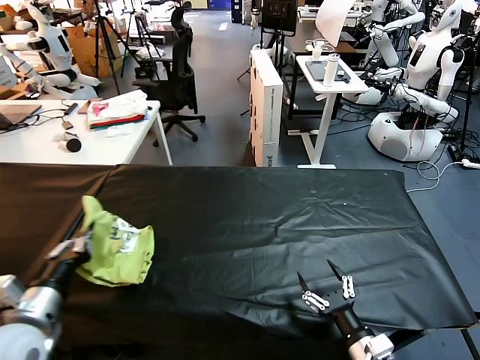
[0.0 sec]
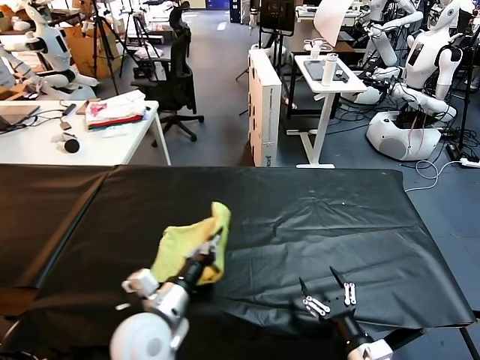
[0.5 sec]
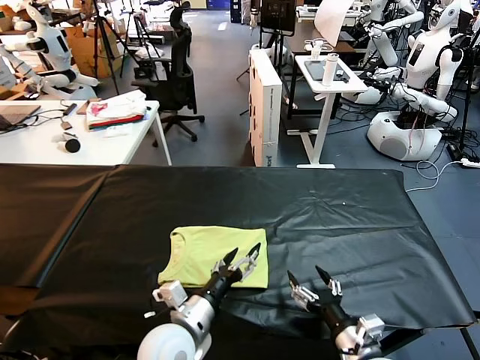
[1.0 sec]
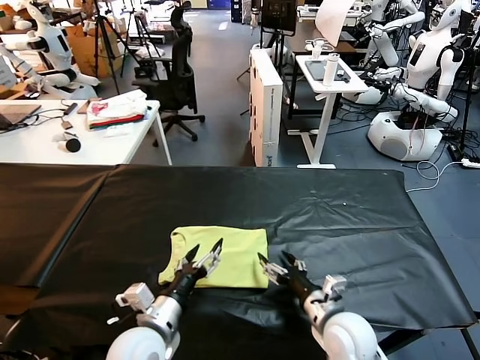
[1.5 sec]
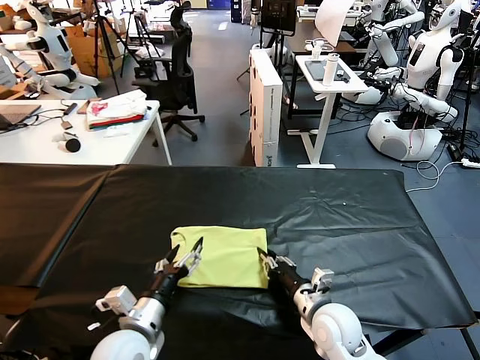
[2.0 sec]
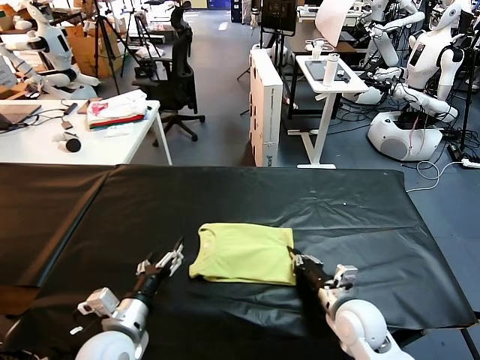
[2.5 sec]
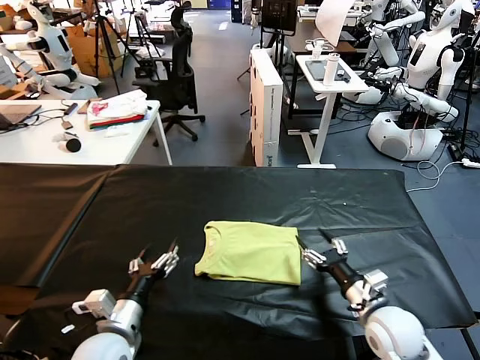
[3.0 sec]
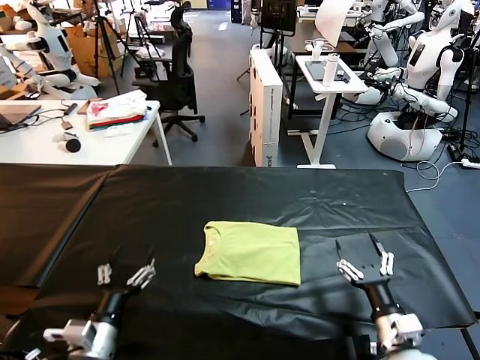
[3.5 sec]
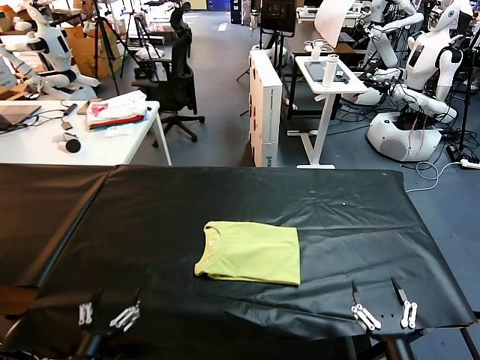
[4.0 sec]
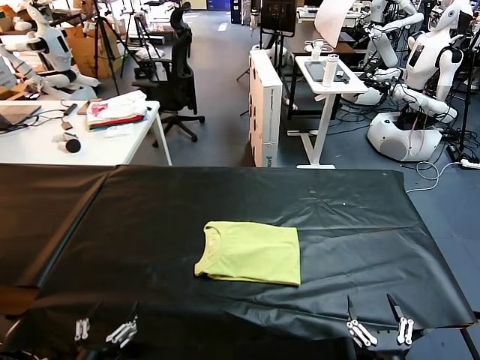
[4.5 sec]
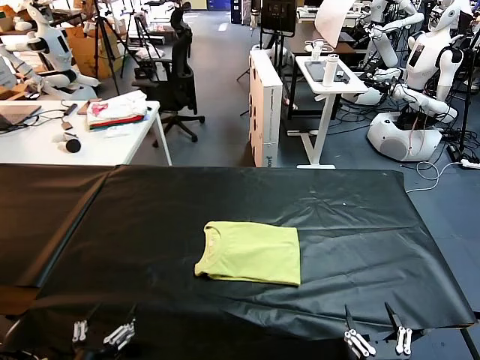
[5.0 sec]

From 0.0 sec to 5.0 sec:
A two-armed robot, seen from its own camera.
Task of the whole recording: fold and organize the clothes.
Step, from 1.0 sec to 2.5 sec: Drag the clothes to the center of the table.
From 0.0 sec to 2.5 sec: The right gripper heads forward, covering roughly 15 cm, and closes. The left gripper goes approximately 15 cm to the right and downward, and opens.
From 2.5 sec to 5.0 sec: The right gripper heads backward, covering roughly 25 cm, and opens. Meanwhile the left gripper is displaced backward and to the left by some 15 cm.

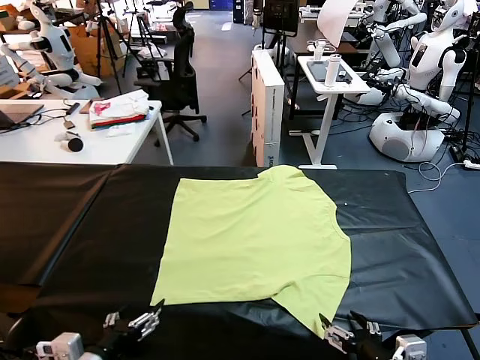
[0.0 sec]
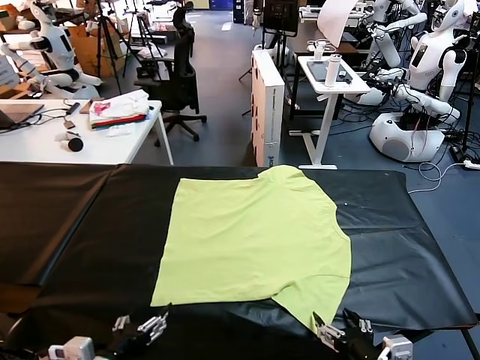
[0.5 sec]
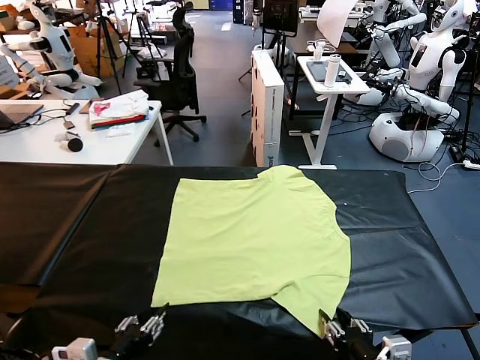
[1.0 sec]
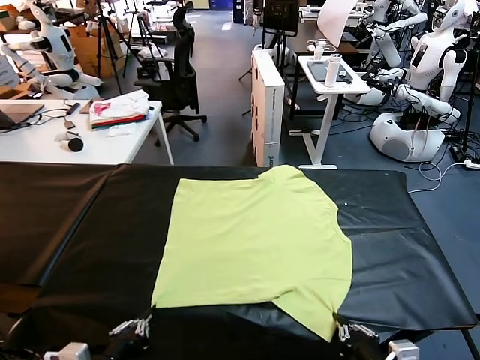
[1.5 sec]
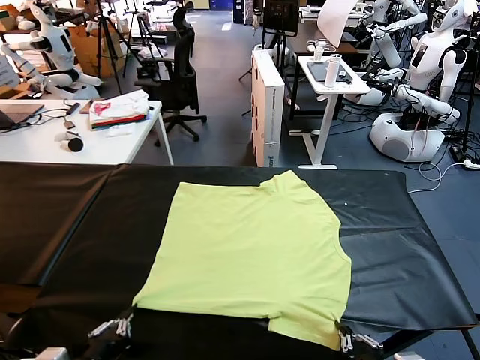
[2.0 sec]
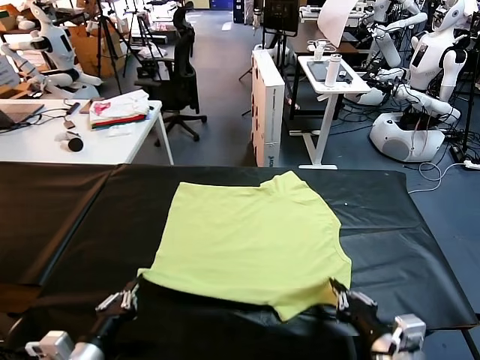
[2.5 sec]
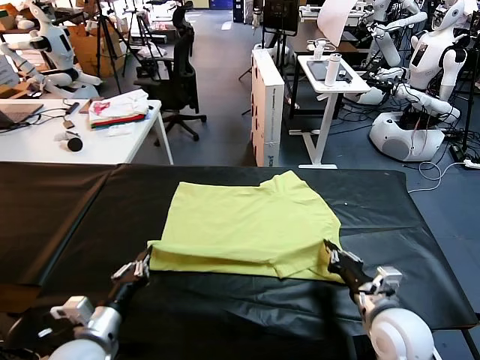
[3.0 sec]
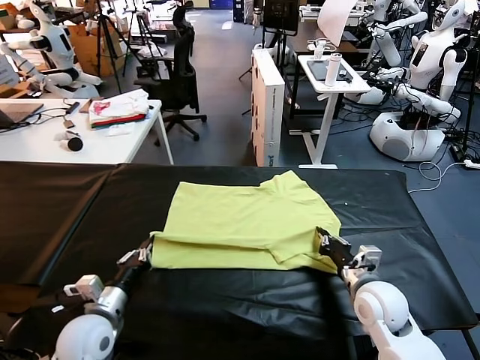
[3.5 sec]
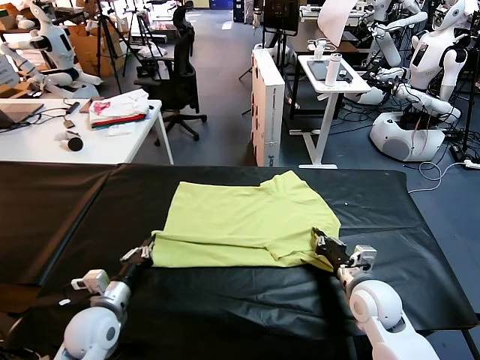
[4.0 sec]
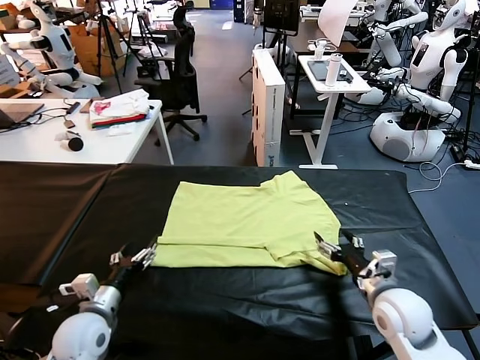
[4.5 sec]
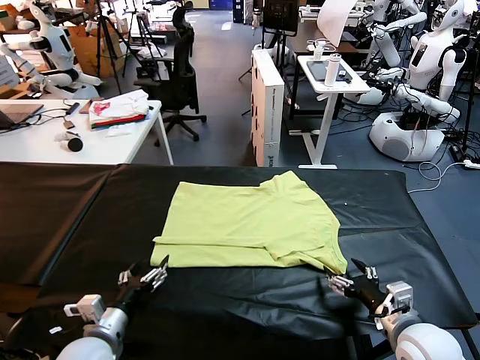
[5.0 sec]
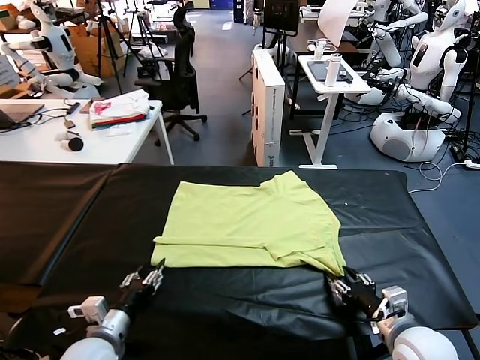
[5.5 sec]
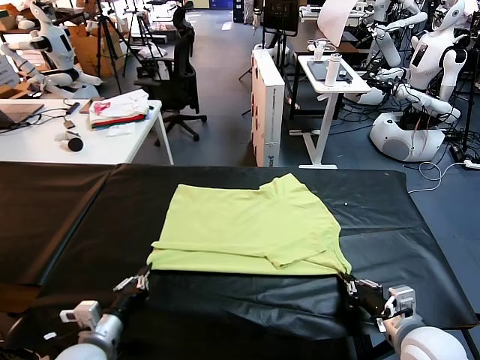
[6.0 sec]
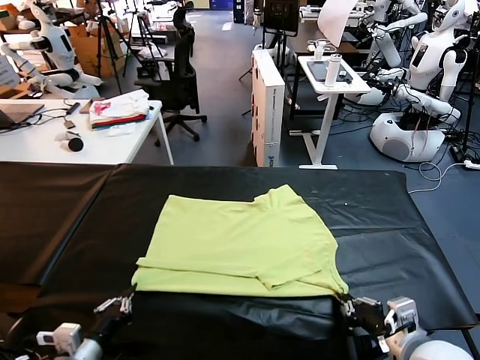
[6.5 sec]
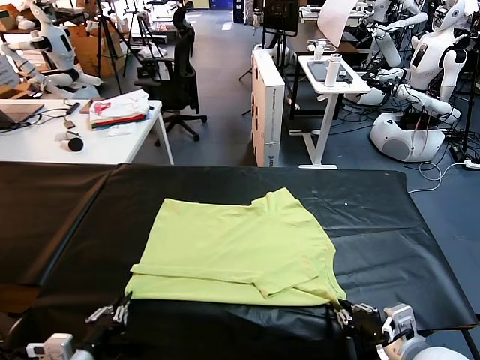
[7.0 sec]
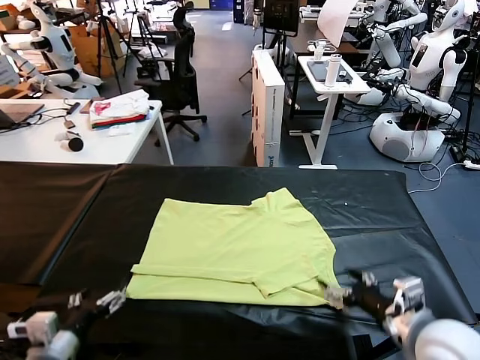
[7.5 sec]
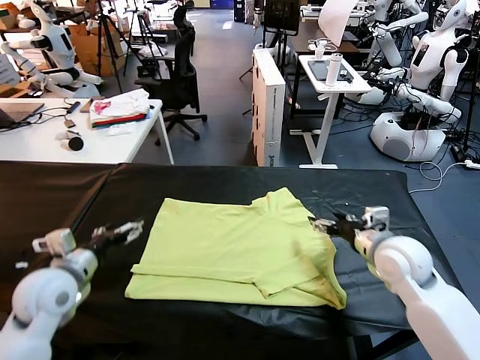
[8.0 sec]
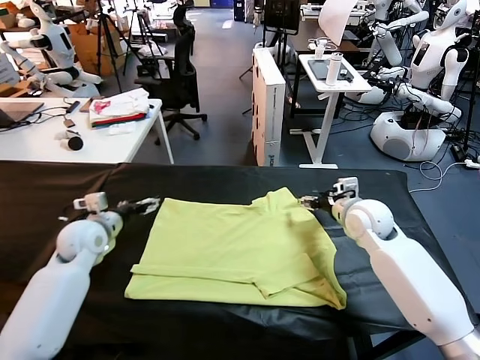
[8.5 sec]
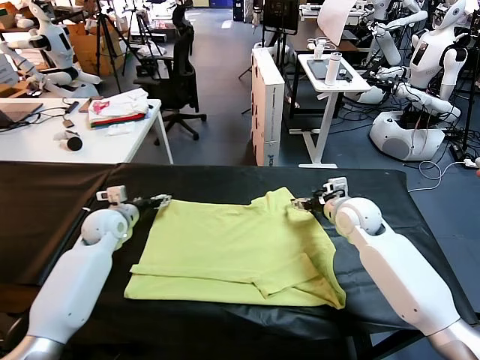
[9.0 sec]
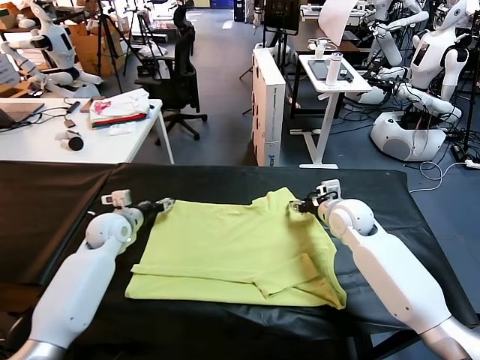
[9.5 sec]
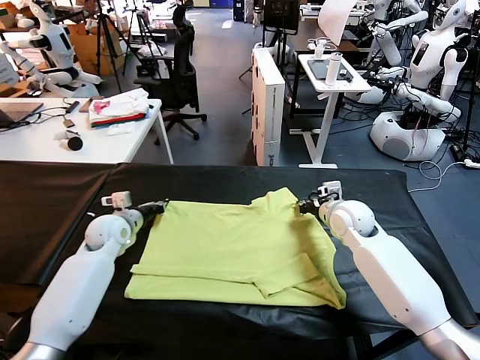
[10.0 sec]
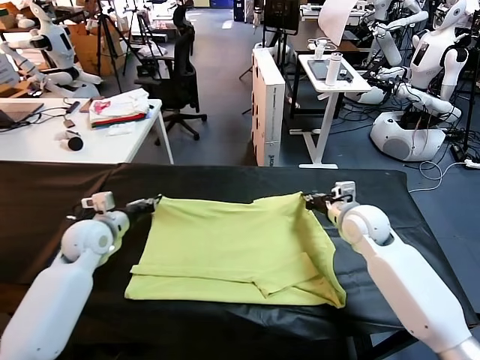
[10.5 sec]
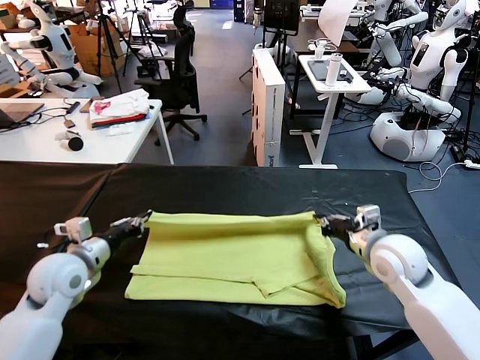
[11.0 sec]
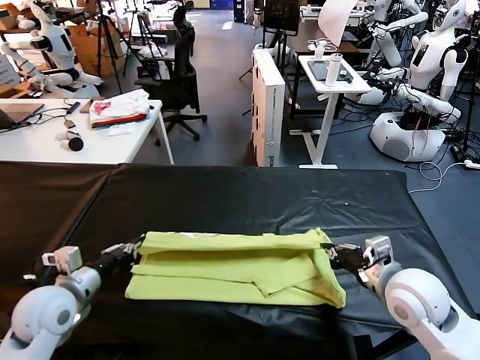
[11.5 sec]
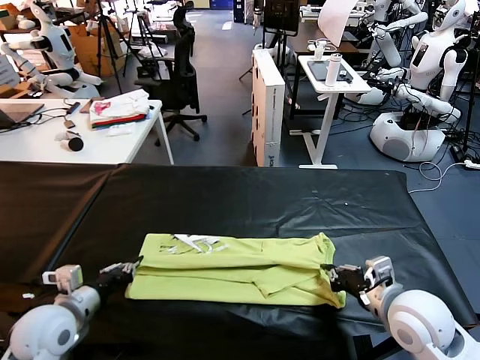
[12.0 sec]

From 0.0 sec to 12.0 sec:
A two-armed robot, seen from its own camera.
Task of the whole recording: fold and organize the clothes.
Step, from 0.0 sec to 1.0 sec: use both grippers simultaneously to clamp the lower edge of the clothing fabric.
Step, from 1.5 sec to 4.0 sec: use both grippers to drag the lower edge of the fabric forward and fold it over the upper edge.
Step, from 4.5 sec to 7.0 sec: Drag the clothes downward with both gripper.
Step, from 7.5 sec to 10.0 sec: use both grippers simultaneously to clamp the upper edge of the clothing fabric.
From 2.0 sec to 4.0 sec: The right gripper goes some 20 cm forward, and opens its fingers. The left gripper is displaced forward and downward by approximately 20 cm.
From 4.0 sec to 6.0 sec: The right gripper travels backward and upward by about 10 cm, and closes its fingers. Meanwhile the left gripper heads backward, covering some 10 cm, and opens, then closes once more.
From 6.0 sec to 8.0 sec: The right gripper is displaced forward by about 20 cm, and opens up. The left gripper shifts approximately 20 cm forward, upward and to the left, and opens its fingers.
From 8.0 sec to 10.0 sec: The right gripper travels forward by some 5 cm, and closes its fingers, while the left gripper moves forward and downward, some 15 cm, and closes up.
From 10.0 sec to 12.0 sec: Both grippers travel together backward, roughly 25 cm.

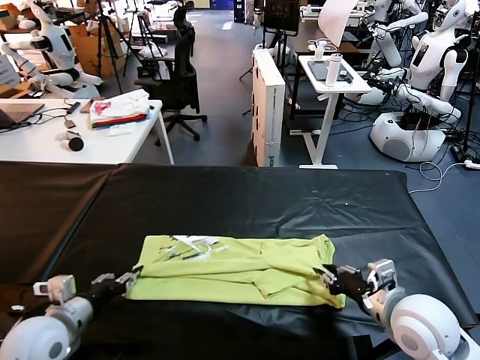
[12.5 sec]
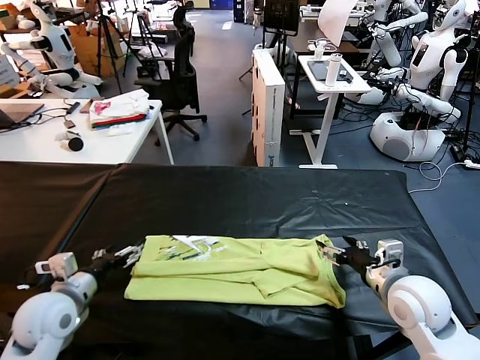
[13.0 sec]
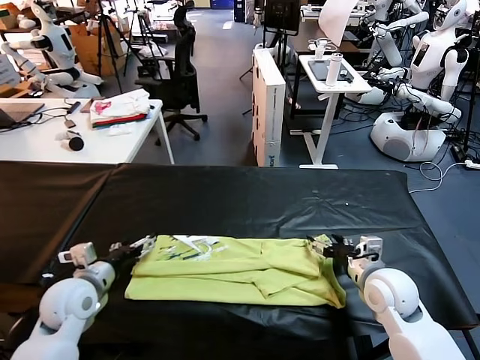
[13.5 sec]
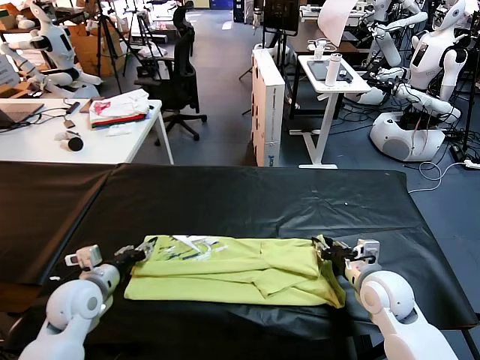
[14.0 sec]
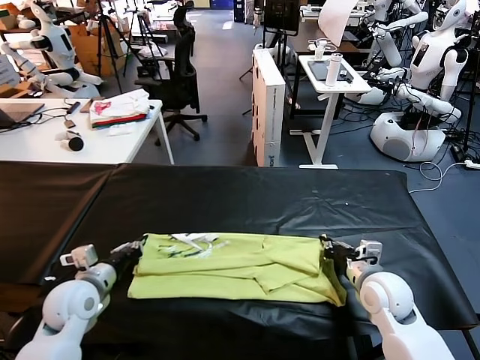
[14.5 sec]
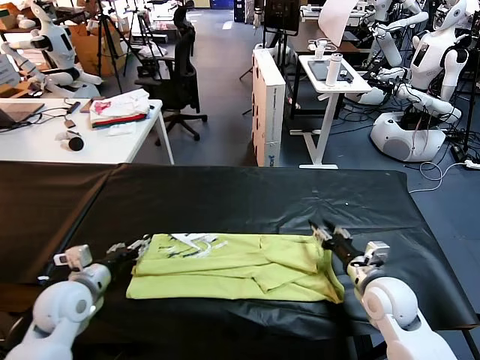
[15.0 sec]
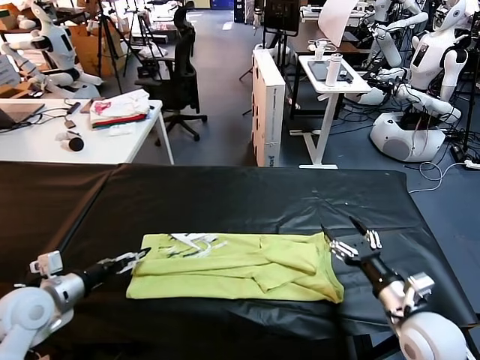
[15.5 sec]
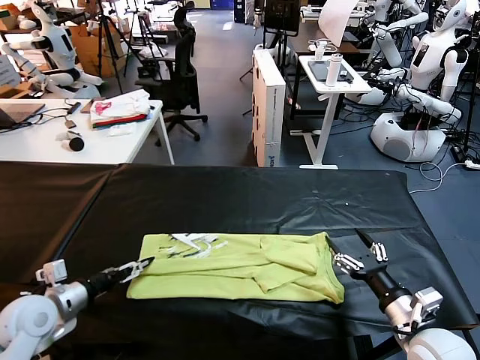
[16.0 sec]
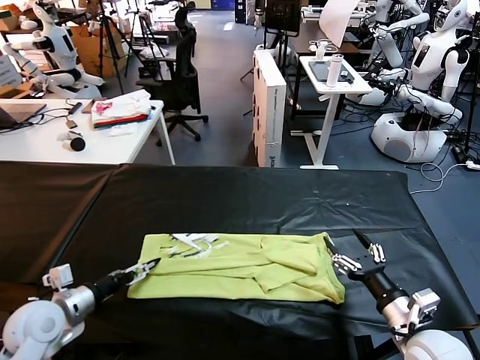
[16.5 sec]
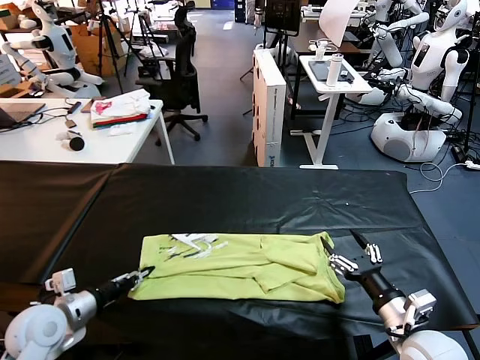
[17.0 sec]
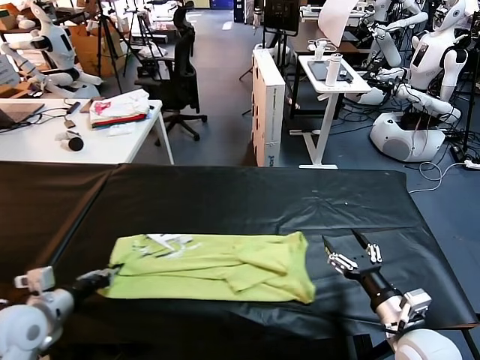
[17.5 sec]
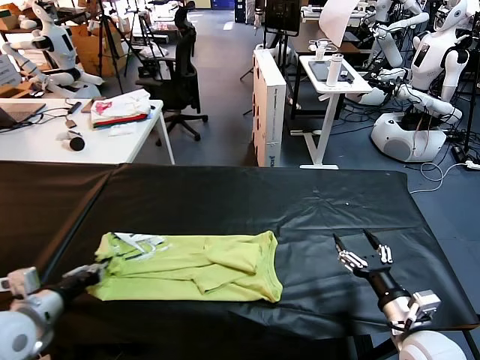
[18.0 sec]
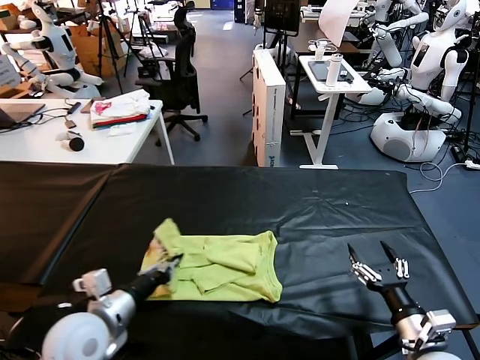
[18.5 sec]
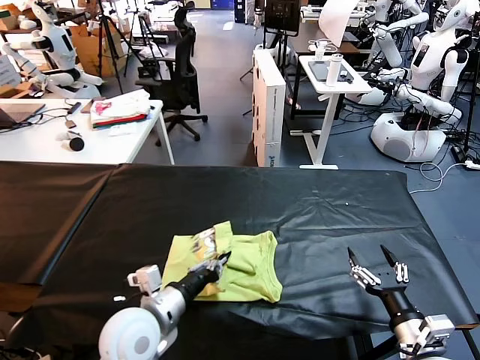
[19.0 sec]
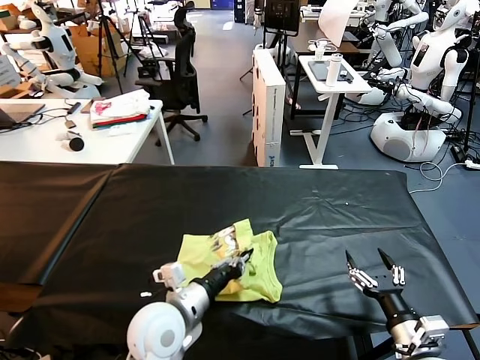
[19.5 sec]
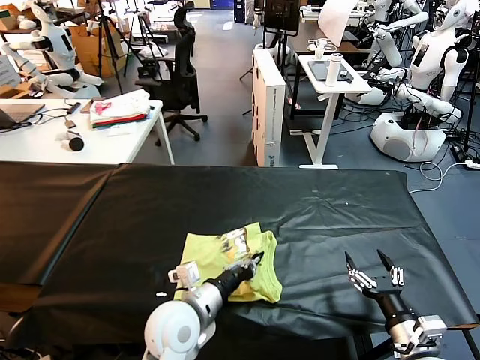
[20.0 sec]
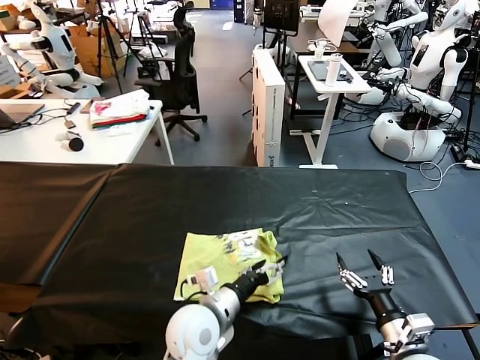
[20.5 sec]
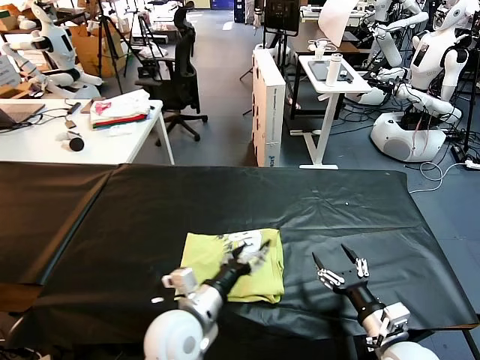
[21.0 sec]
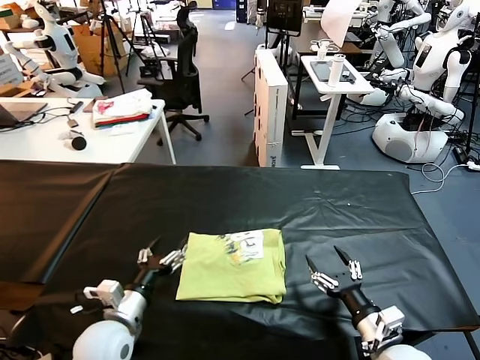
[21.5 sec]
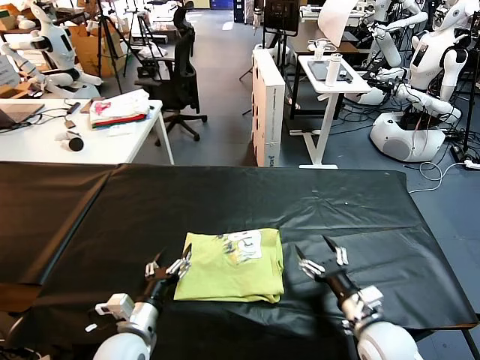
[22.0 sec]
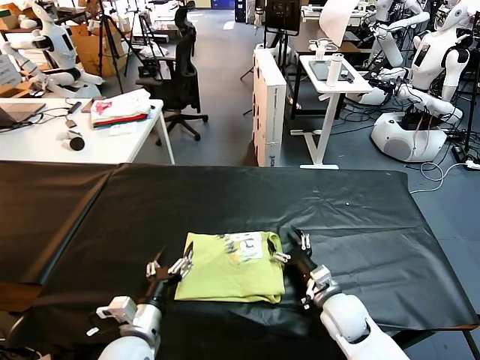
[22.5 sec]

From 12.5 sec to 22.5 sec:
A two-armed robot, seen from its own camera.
Task of the whole recording: fold and organize the clothes.
Step, from 13.0 sec to 17.0 sec: use the left gripper to clamp the left edge of the fabric.
Step, from 17.5 sec to 20.5 sec: use the left gripper to drag the left edge of the fabric to the left and folds it over the right edge.
From 12.5 sec to 14.5 sec: The left gripper is displaced forward by some 10 cm, and closes. The right gripper goes about 10 cm downward and forward, and closes up.
From 14.5 sec to 16.5 sec: The right gripper goes about 10 cm backward, and opens its fingers. Meanwhile the left gripper changes place by some 5 cm, and opens.
From 16.5 sec to 18.5 sec: The left gripper shifts approximately 10 cm to the right, and closes.
From 18.5 sec to 20.5 sec: The left gripper travels to the right by roughly 20 cm, and opens up.
From 20.5 sec to 22.5 sec: The left gripper travels to the left by some 15 cm. The right gripper travels forward, to the left and downward by some 20 cm.
